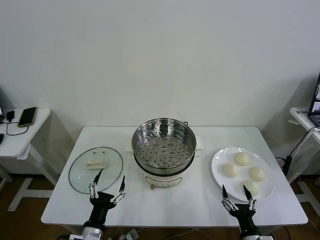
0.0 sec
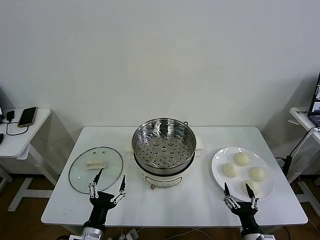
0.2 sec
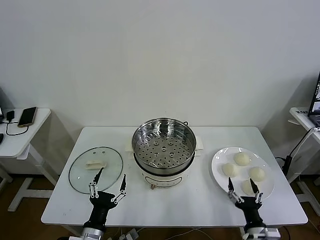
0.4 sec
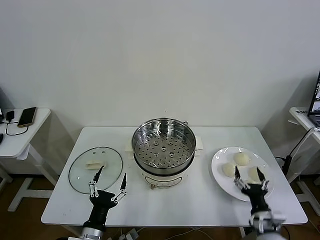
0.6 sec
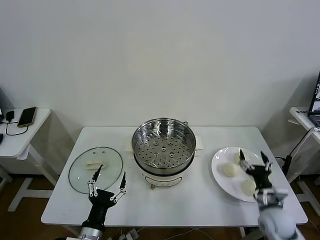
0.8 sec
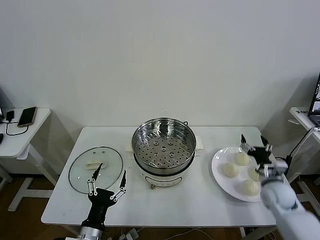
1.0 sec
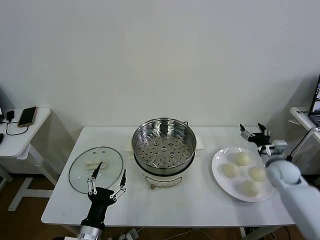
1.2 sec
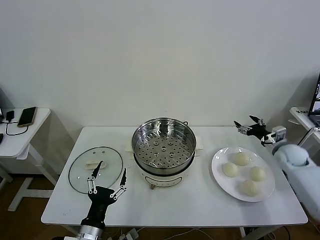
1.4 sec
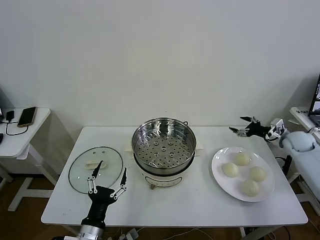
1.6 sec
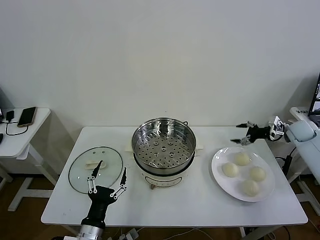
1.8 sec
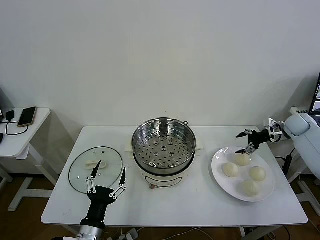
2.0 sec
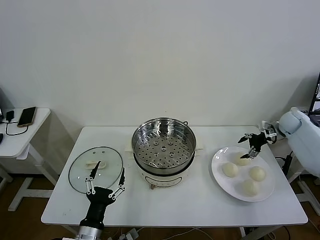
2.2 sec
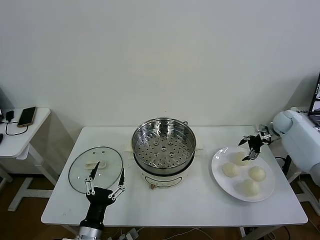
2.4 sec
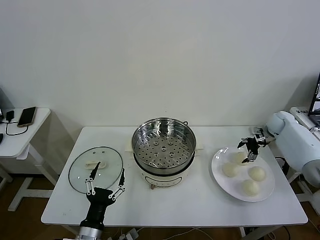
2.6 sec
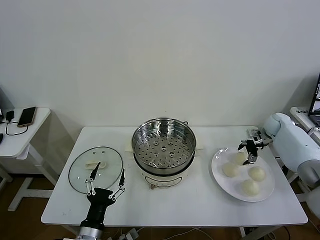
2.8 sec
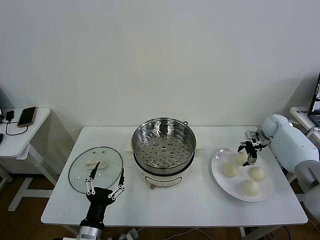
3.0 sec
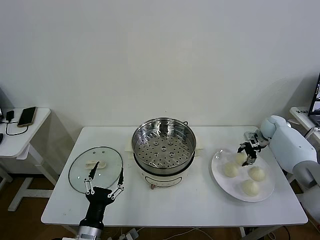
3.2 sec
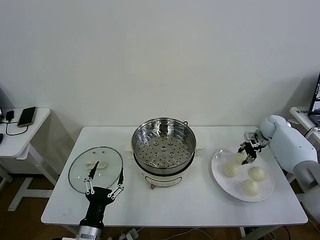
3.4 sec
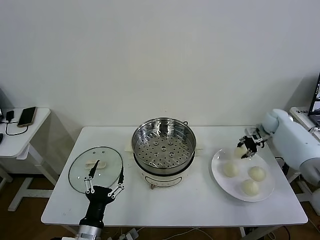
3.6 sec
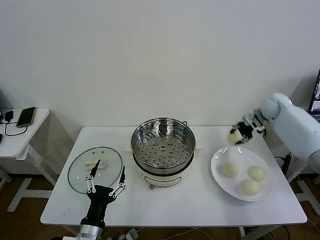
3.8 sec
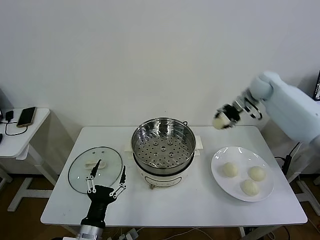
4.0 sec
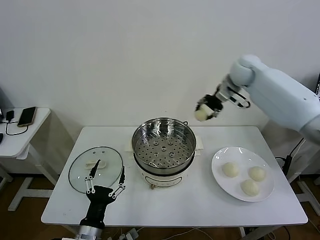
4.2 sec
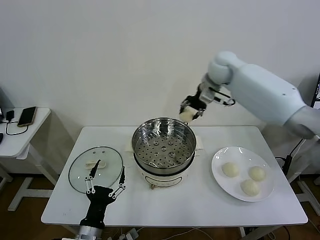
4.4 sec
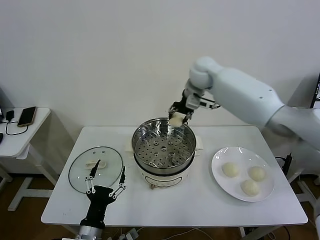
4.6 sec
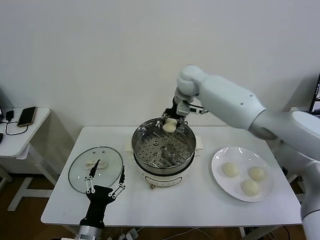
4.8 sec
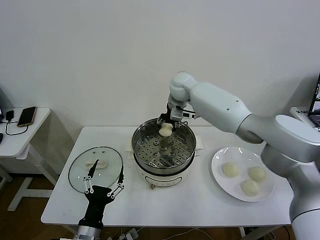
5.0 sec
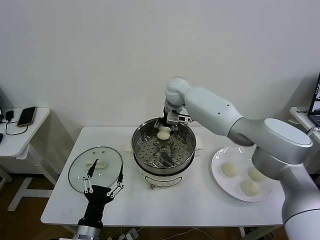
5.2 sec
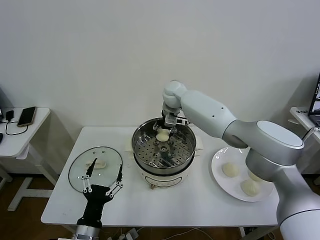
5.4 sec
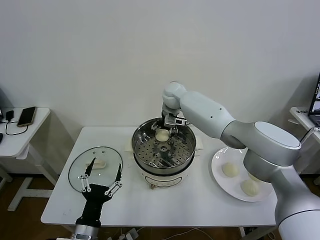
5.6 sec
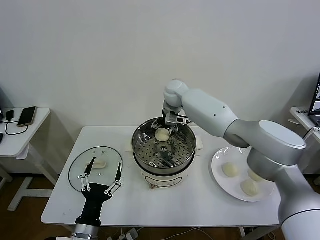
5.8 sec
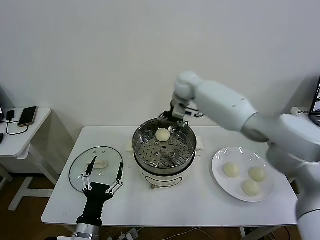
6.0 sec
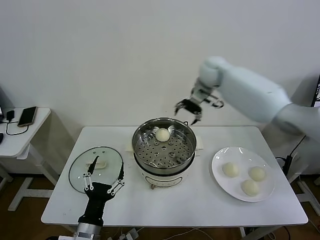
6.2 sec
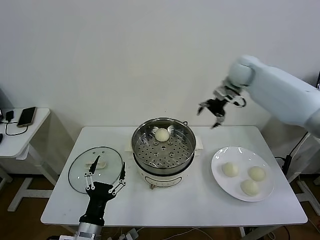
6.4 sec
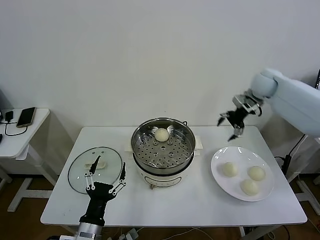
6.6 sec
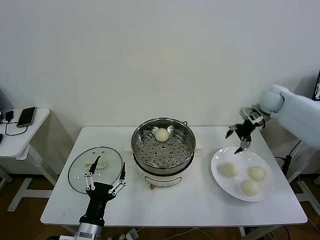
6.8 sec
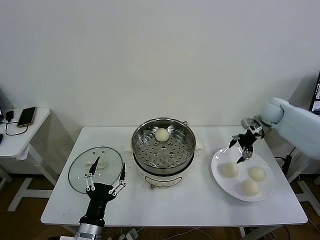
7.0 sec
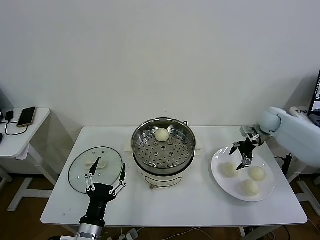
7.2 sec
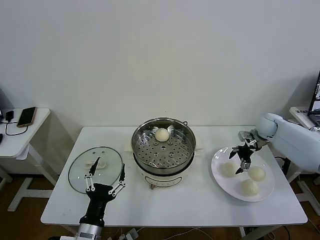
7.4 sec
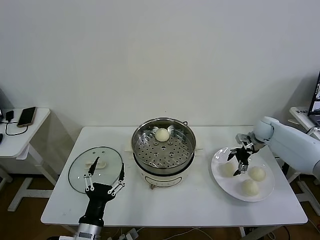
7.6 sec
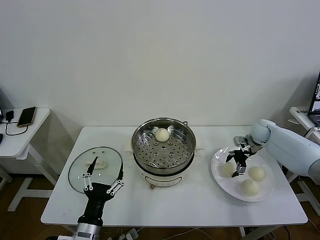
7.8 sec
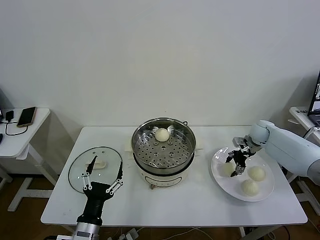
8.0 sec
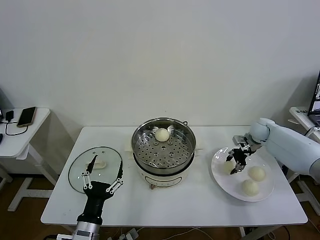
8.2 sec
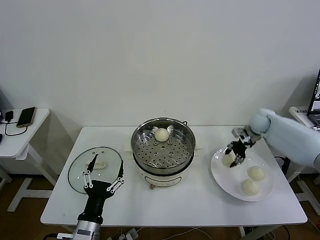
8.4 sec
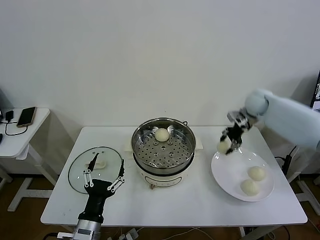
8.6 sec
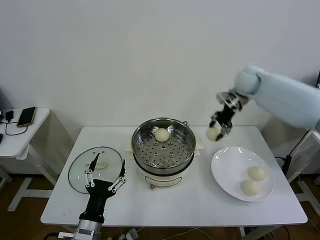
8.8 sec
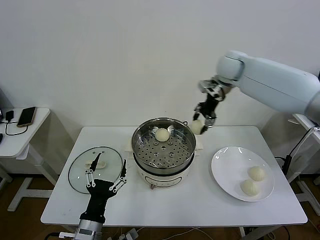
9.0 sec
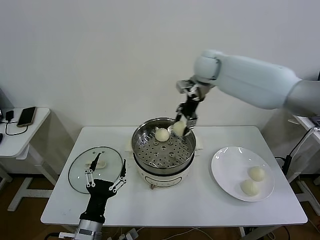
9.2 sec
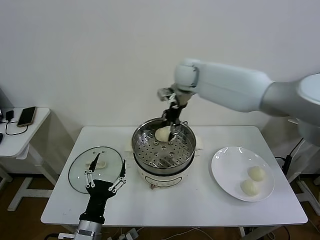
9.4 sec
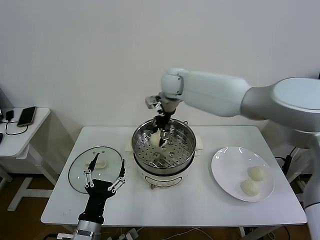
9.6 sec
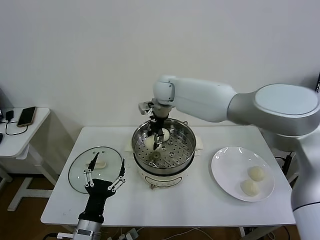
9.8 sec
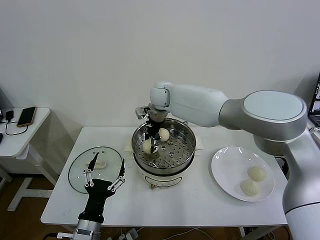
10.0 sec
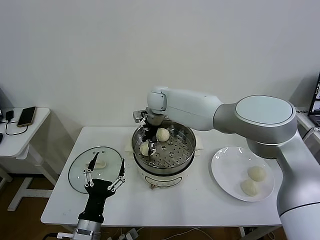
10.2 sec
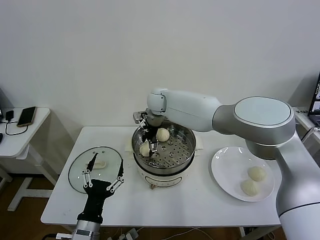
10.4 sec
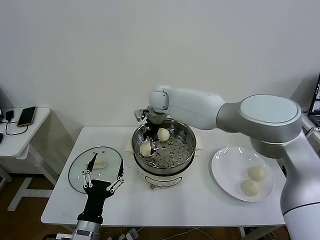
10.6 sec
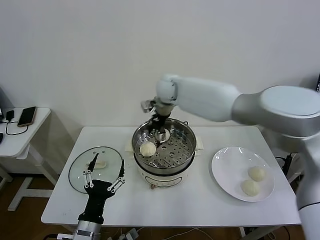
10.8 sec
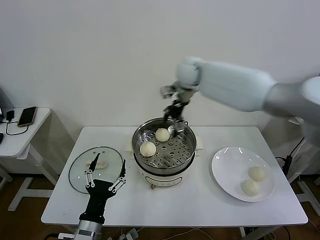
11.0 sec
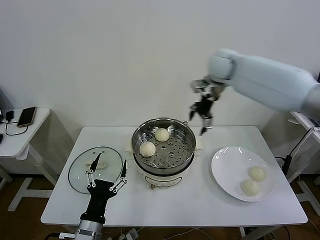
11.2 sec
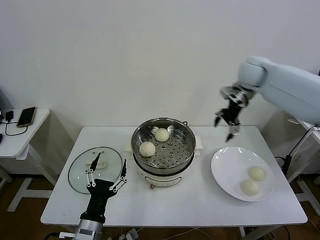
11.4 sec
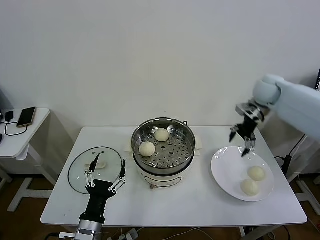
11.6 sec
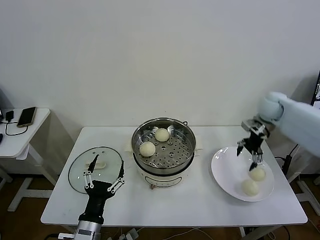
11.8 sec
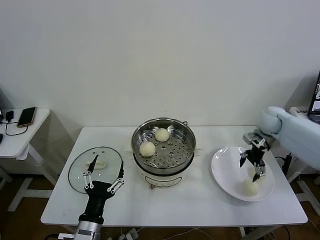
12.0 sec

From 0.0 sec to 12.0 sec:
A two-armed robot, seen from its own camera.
Task of the whole recording: take steamed baozi put them in steamer then cover it.
Step, from 0.0 sec to 3.2 sec: Grasp the baozi in the plate with right gripper.
Step, from 3.4 sec to 5.6 sec: Place the baozi on the steamer with right gripper.
Step, from 5.8 sec to 8.0 sec: Grasp the baozi in the plate with right gripper.
Step, from 8.2 sec to 10.4 sec: Place the baozi on the steamer with right gripper.
From 1.6 sec to 3.0 sec: The right gripper moves forward and to the left, some 10 cm.
From 3.0 sec to 4.4 sec: The right gripper moves to the left and upward, roughly 40 cm, and closes up.
From 4.4 sec to 6.0 sec: The right gripper goes to the left and returns, roughly 10 cm each way, and opens up.
From 6.0 sec to 7.6 sec: The right gripper moves to the right and downward, roughly 35 cm.
From 7.6 sec to 9.0 sec: The right gripper is displaced upward and to the left by about 35 cm, and closes.
From 9.0 sec to 10.4 sec: The right gripper travels to the left and downward by roughly 25 cm, and opens its fingers.
From 10.4 sec to 12.0 sec: The right gripper is displaced to the right by some 40 cm.

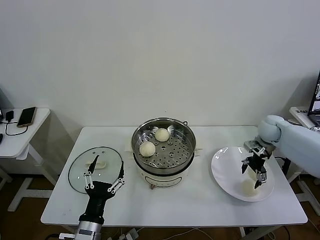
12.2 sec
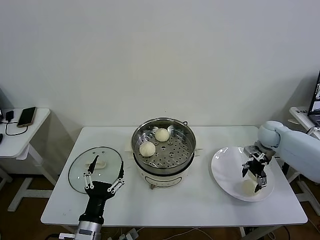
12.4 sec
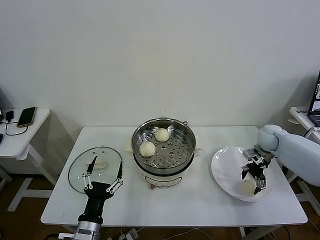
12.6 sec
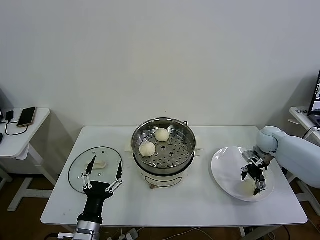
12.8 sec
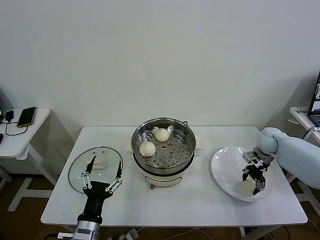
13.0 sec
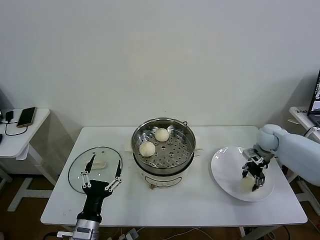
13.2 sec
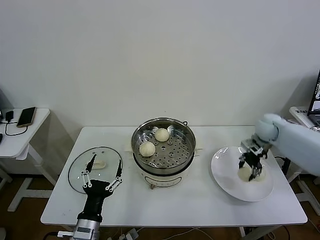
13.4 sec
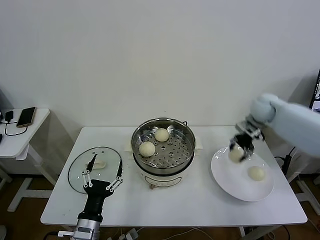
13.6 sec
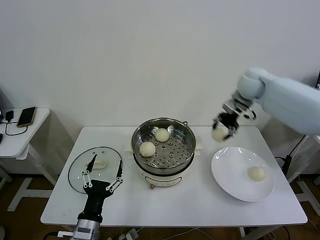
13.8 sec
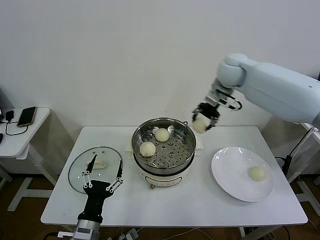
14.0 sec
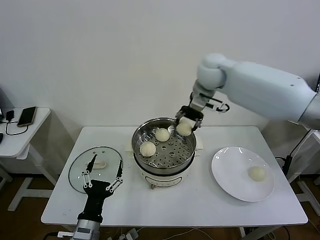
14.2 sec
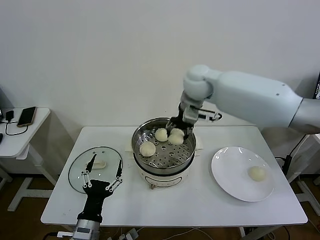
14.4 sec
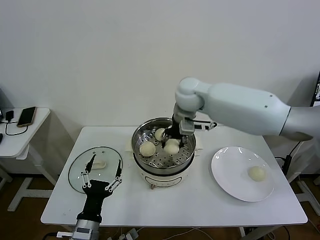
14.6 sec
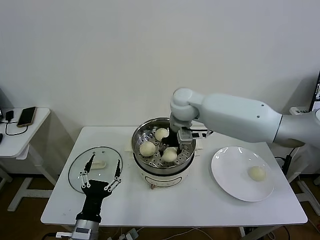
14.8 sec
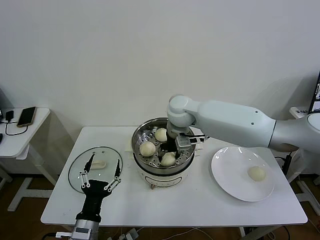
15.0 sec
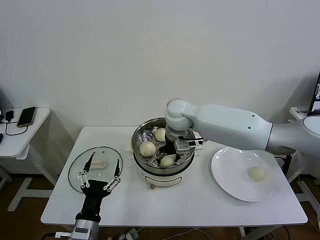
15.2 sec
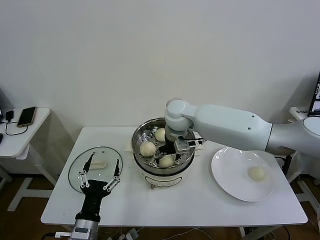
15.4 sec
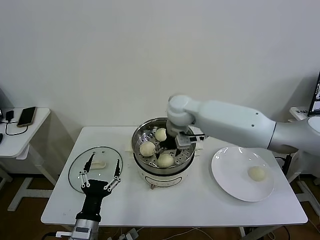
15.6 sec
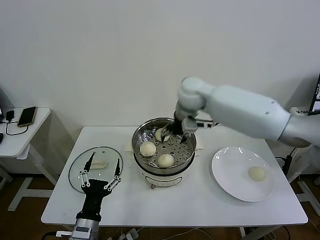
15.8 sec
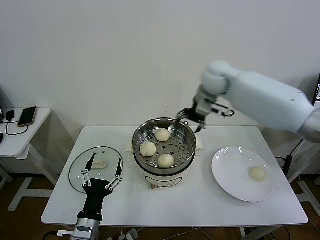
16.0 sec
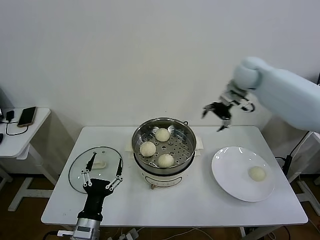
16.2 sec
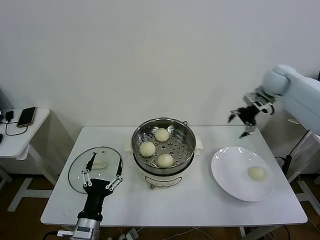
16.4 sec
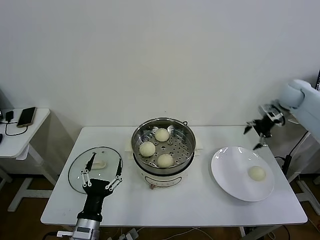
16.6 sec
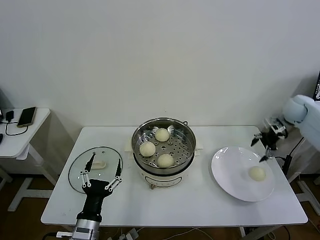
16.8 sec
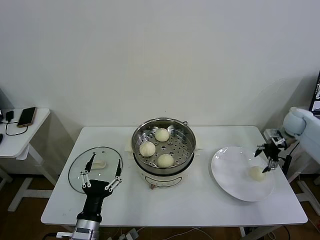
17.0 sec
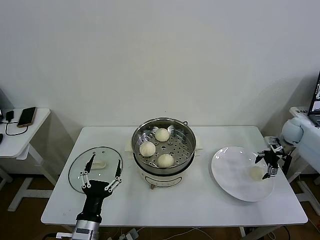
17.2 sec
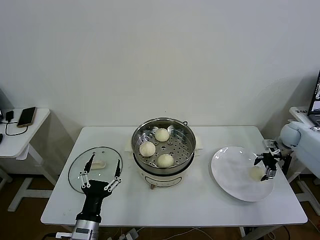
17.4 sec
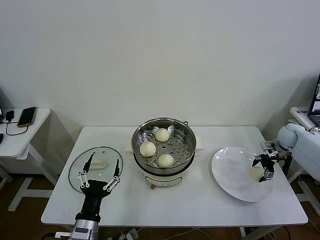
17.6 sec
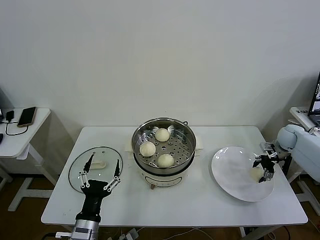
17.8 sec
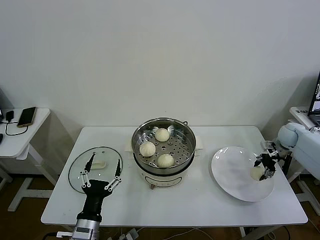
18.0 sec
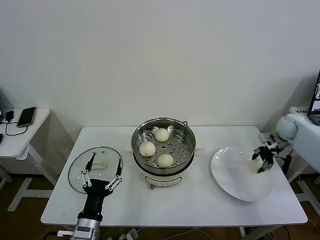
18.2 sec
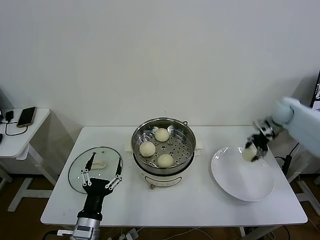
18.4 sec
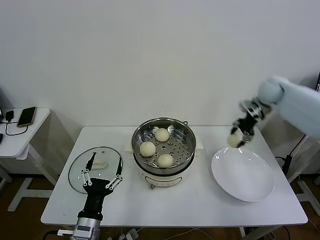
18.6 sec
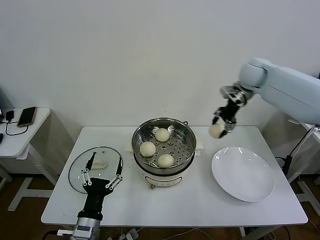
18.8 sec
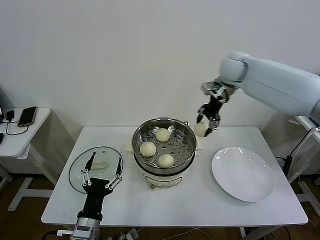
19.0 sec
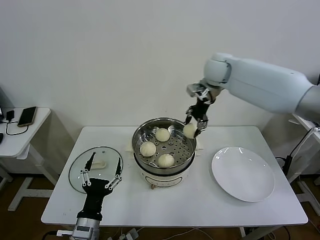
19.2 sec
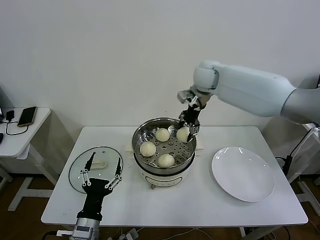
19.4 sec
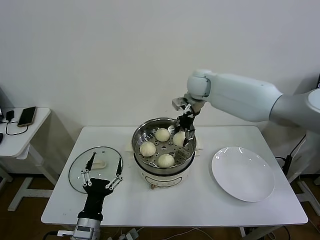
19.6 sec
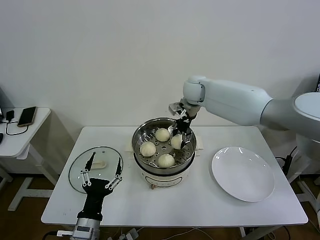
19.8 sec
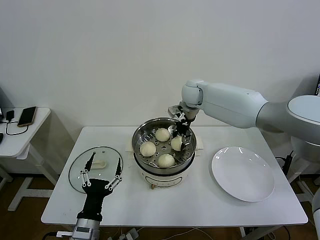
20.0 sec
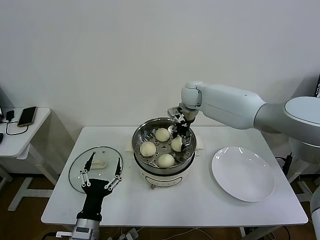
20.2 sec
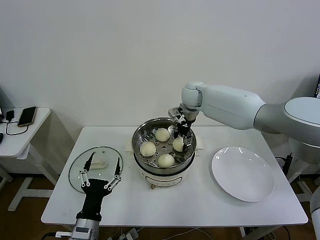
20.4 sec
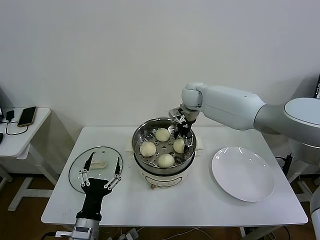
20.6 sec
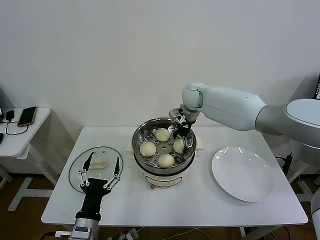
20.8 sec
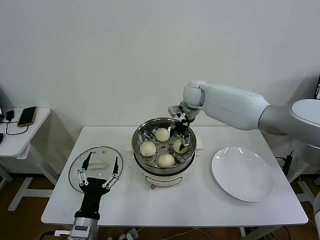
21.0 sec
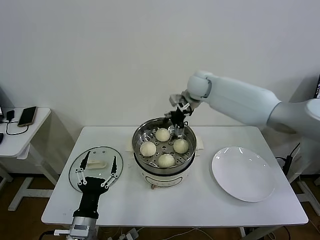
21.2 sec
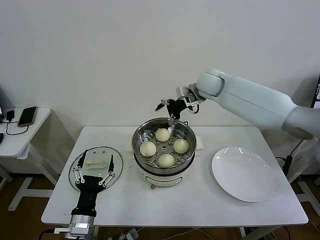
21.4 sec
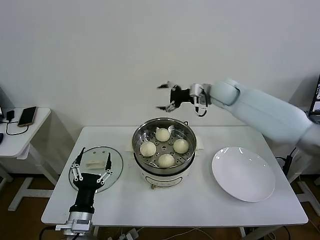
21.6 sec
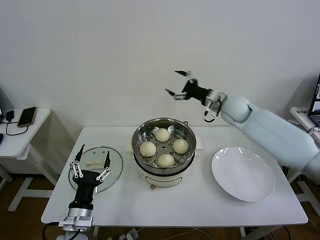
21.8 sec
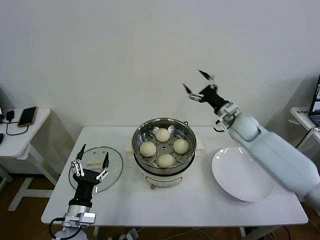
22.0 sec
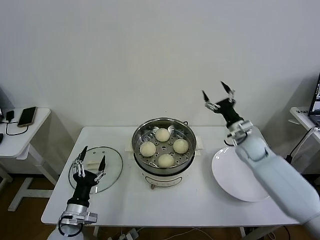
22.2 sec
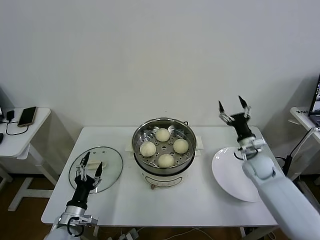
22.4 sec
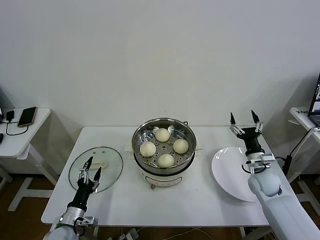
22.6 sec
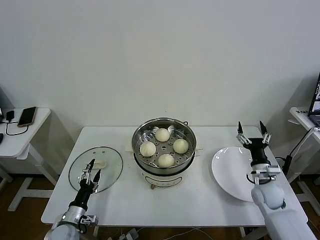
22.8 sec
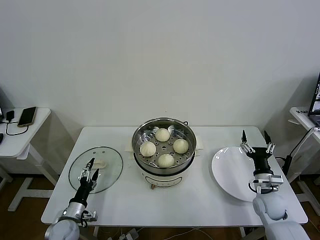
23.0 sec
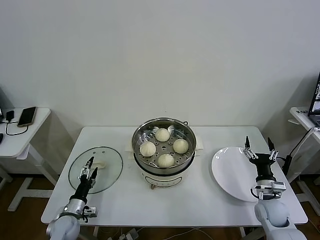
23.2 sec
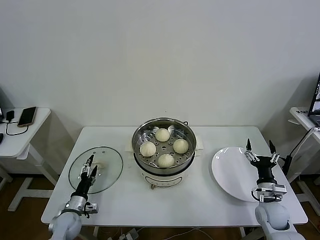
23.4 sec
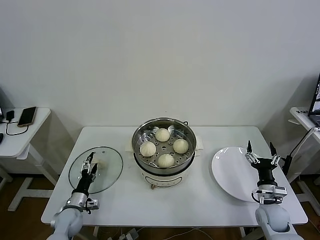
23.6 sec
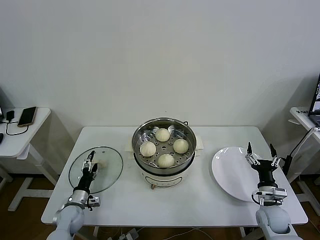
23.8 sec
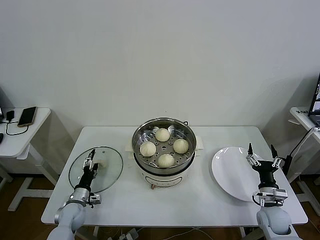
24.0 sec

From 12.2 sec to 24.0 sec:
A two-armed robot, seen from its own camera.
Task of the whole recording: take steamed baozi put them in steamer then cover it.
Step, from 13.2 sec to 15.6 sec: Place the baozi on the steamer with right gripper.
Step, from 15.8 sec to 18.0 sec: Grasp the baozi in the plate with right gripper.
Step, from 18.2 sec to 20.6 sec: Place the baozi on the steamer with right gripper.
From 12.2 sec to 13.6 sec: The right gripper shifts about 15 cm upward and to the left, and closes.
From 13.6 sec to 15.2 sec: The right gripper shifts some 30 cm to the left, and opens.
From 15.2 sec to 16.6 sec: The right gripper is displaced to the right by roughly 40 cm.
From 16.6 sec to 18.2 sec: The right gripper heads downward, covering about 10 cm, and closes its fingers.
From 18.2 sec to 19.6 sec: The right gripper travels to the left by some 35 cm.
From 19.6 sec to 21.0 sec: The right gripper opens.
From 21.0 sec to 22.6 sec: The left gripper travels downward, to the left and forward by some 15 cm, while the right gripper shifts approximately 40 cm to the right, downward and backward.
From 22.6 sec to 24.0 sec: The right gripper travels backward and downward by approximately 10 cm; the left gripper goes roughly 10 cm forward and downward.
